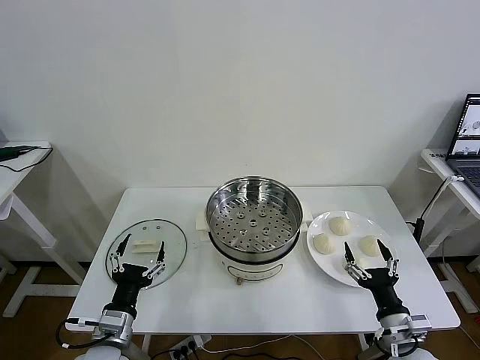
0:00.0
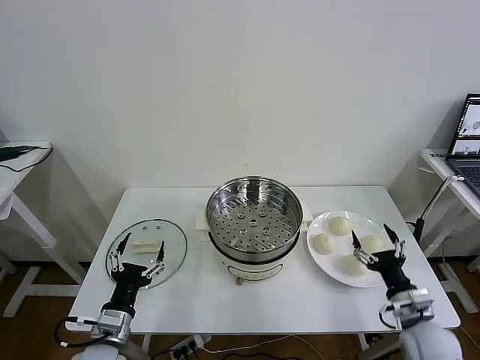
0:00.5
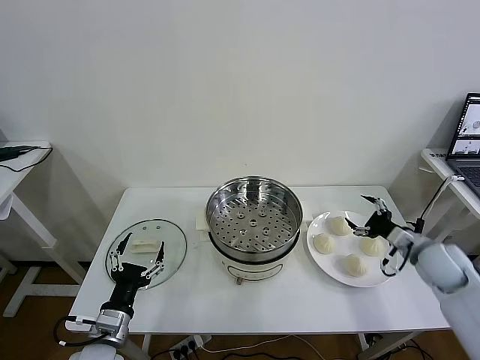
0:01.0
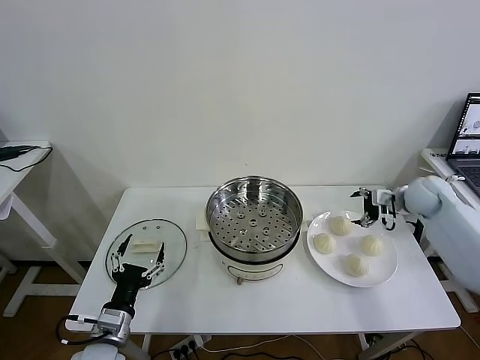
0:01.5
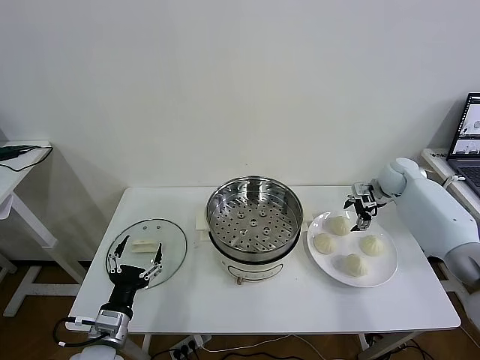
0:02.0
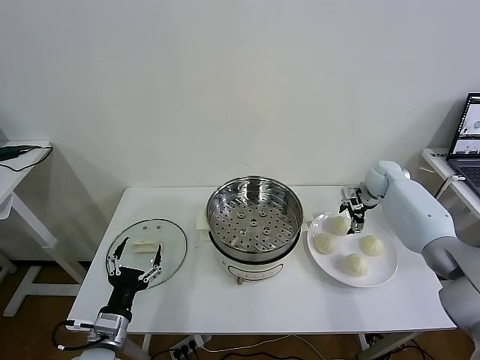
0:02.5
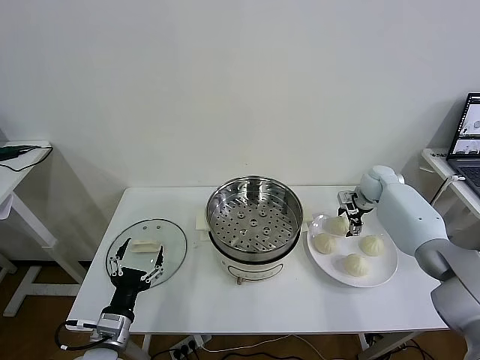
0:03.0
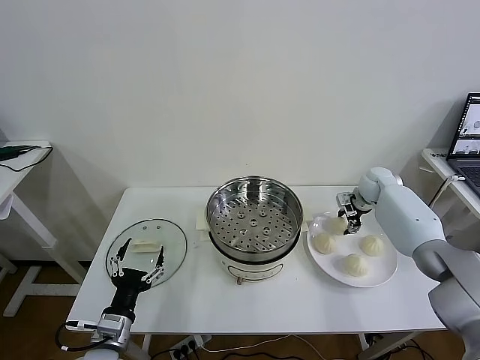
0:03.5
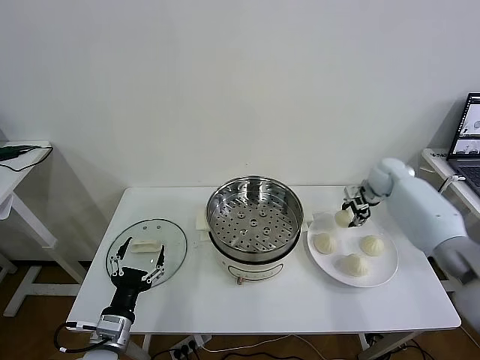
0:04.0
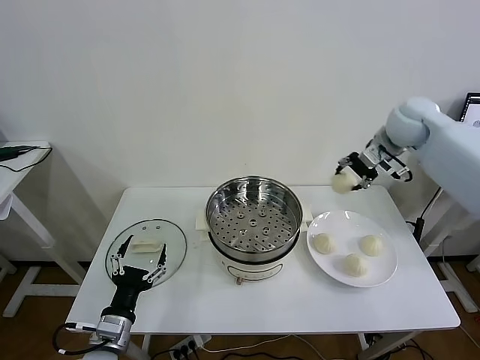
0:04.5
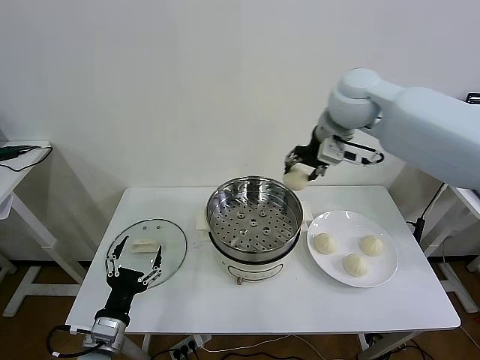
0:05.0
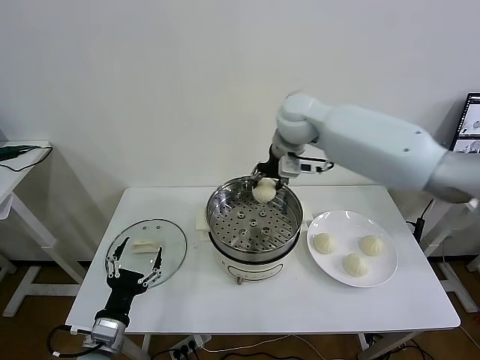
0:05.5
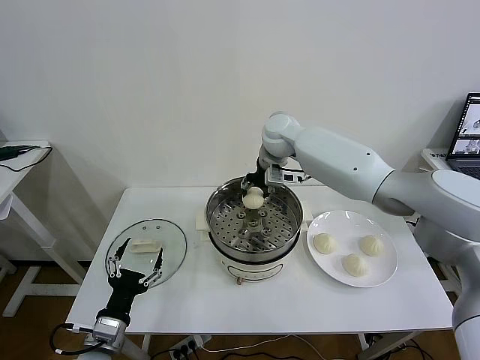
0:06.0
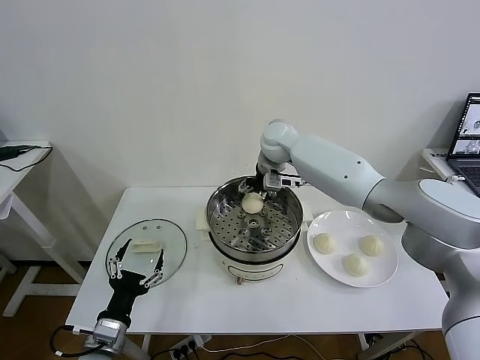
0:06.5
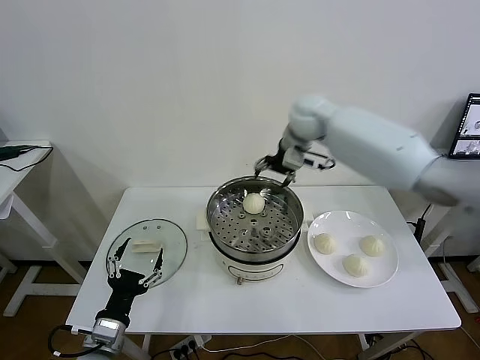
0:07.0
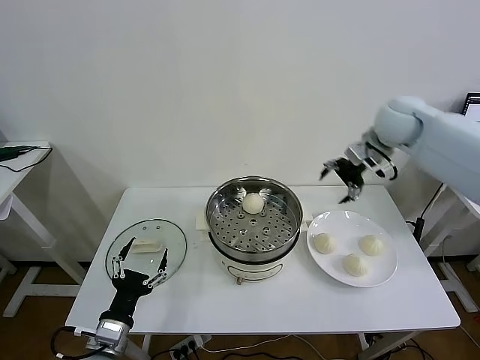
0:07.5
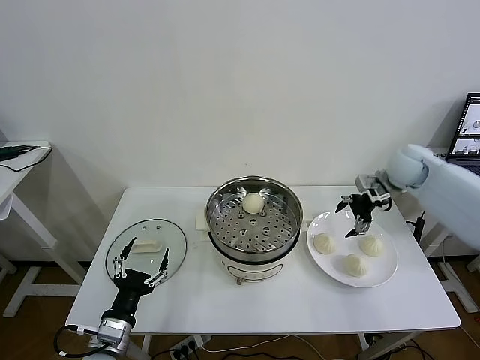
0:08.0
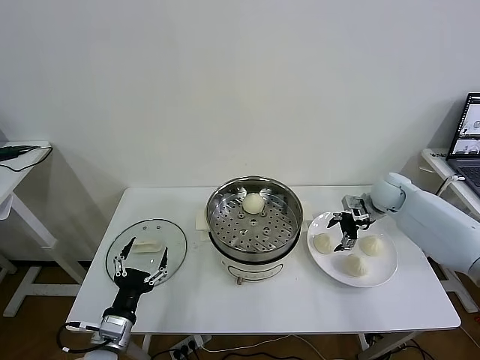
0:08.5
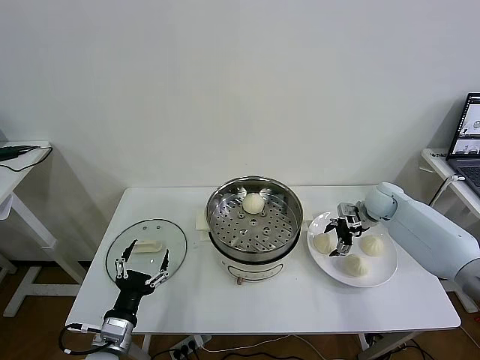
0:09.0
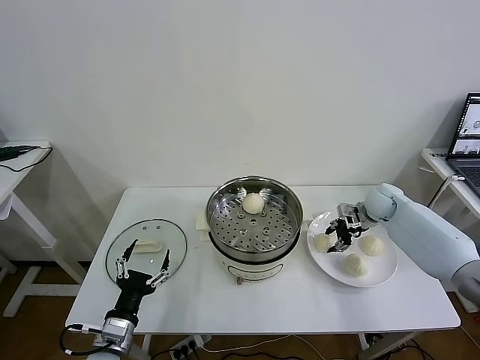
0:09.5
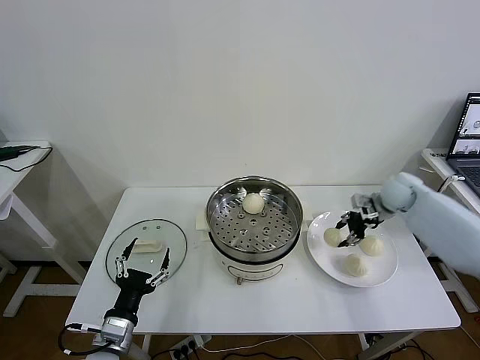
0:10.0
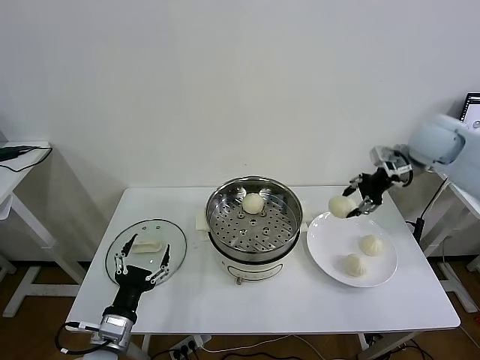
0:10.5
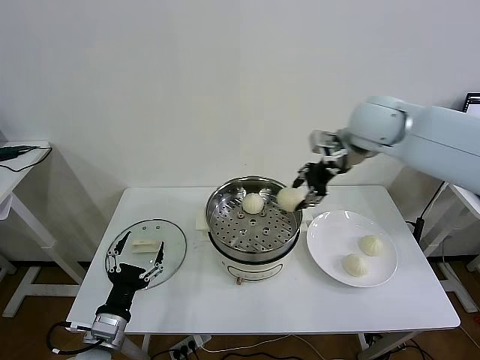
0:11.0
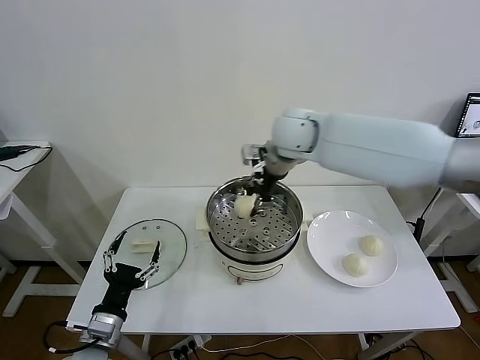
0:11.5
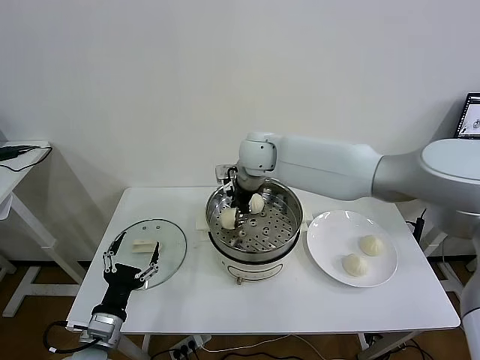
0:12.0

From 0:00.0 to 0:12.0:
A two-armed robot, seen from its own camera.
Task of the whole recording: take steamed baozi put them in steamer then cover it.
Step, from 0:00.0 to 0:03.5: Grasp the baozi in the plate with right gripper.
Step, from 0:04.0 to 0:06.5: Place the baozi on the steamer with right gripper.
Step, from 0:07.0 to 0:09.5: Grasp the baozi in the plate with right gripper.
From 0:02.0 to 0:04.0: The right gripper closes its fingers.
From 0:04.0 to 0:06.0: The right gripper travels to the left and upward by some 35 cm.
From 0:06.0 to 0:08.0: The right gripper shifts approximately 30 cm to the right, and opens.
From 0:08.0 to 0:10.0: The right gripper heads downward, covering approximately 10 cm, and closes up.
From 0:10.0 to 0:12.0: The right gripper shifts roughly 35 cm to the left.

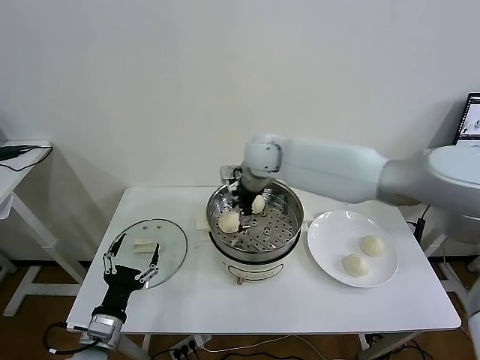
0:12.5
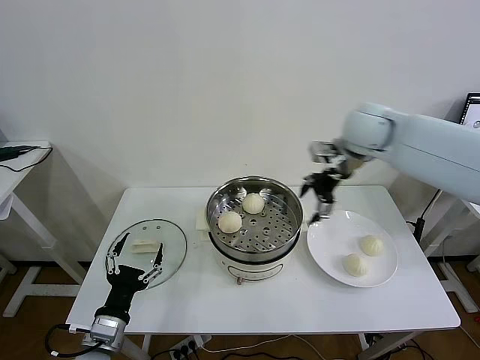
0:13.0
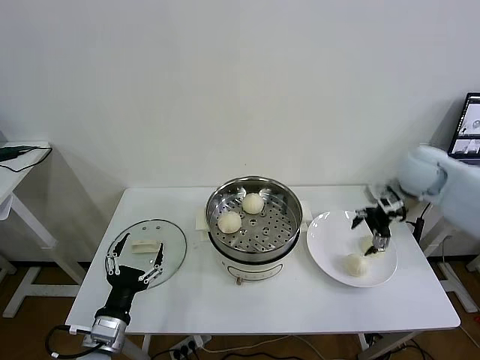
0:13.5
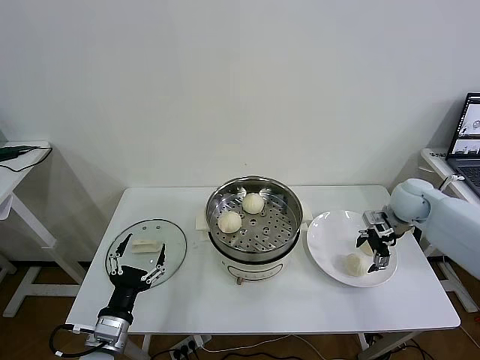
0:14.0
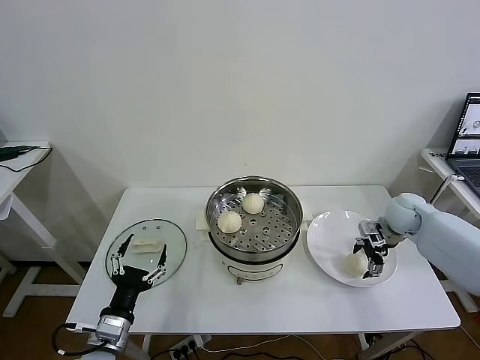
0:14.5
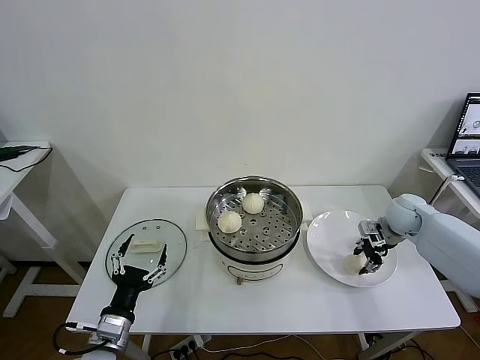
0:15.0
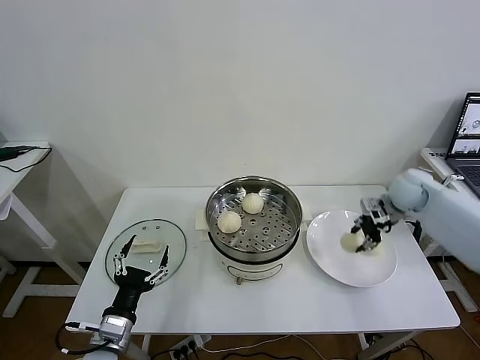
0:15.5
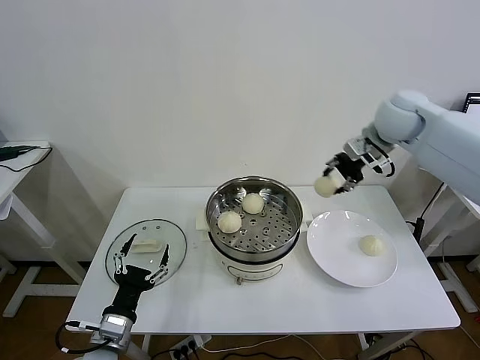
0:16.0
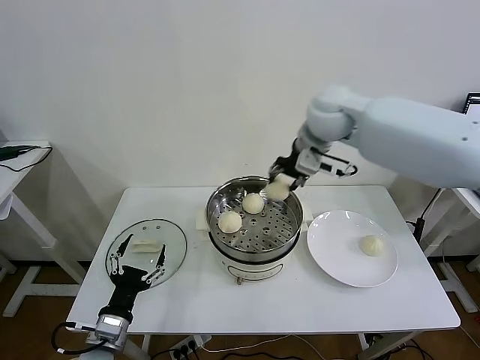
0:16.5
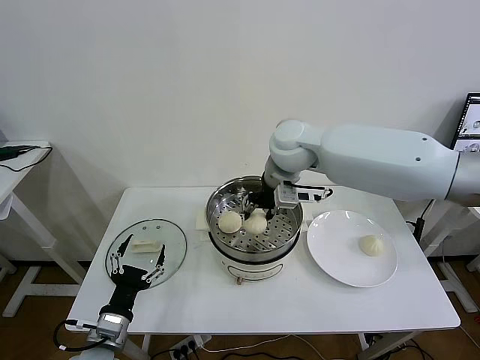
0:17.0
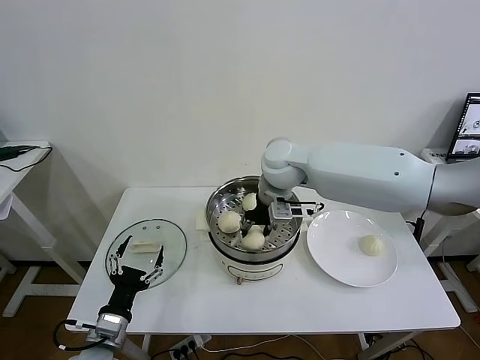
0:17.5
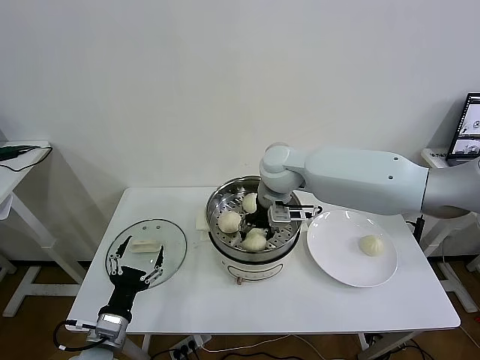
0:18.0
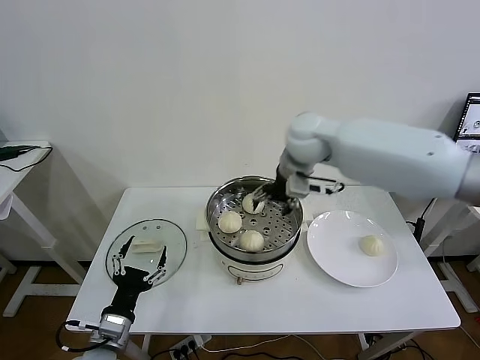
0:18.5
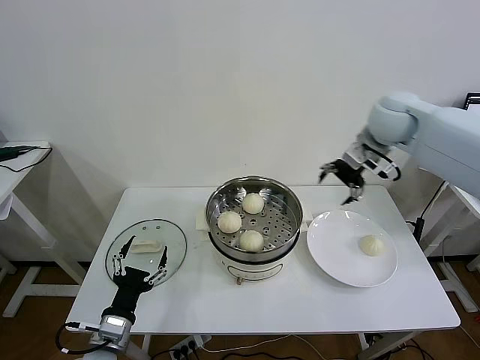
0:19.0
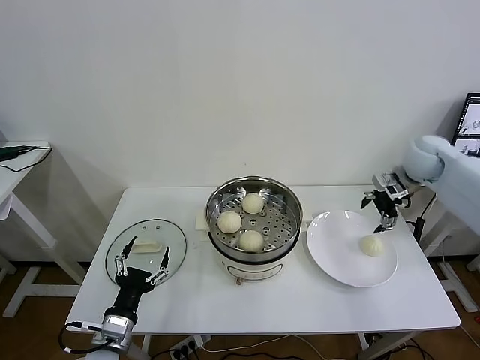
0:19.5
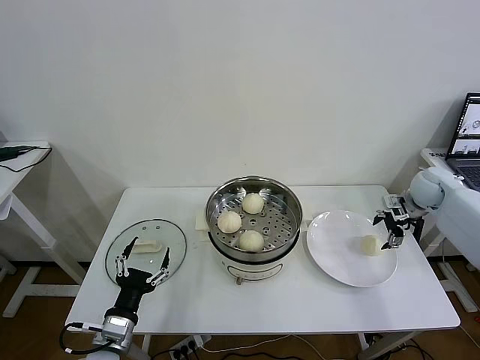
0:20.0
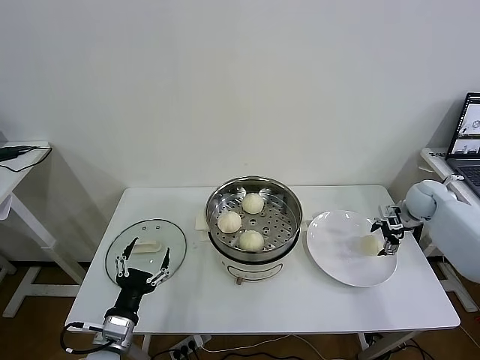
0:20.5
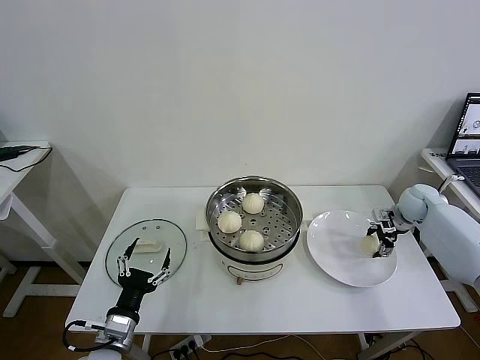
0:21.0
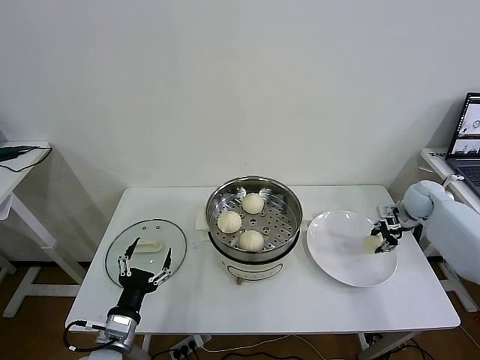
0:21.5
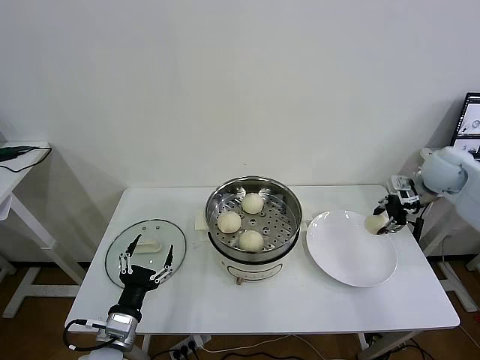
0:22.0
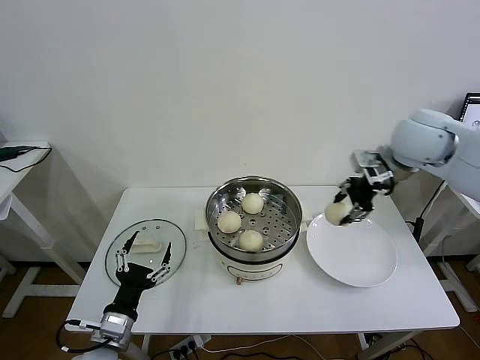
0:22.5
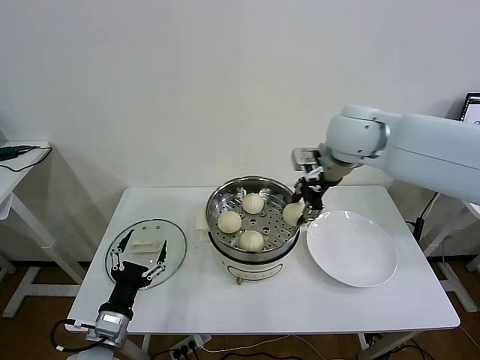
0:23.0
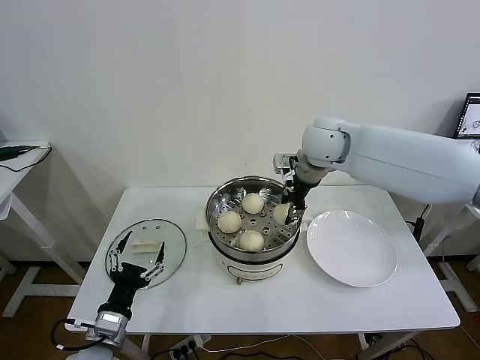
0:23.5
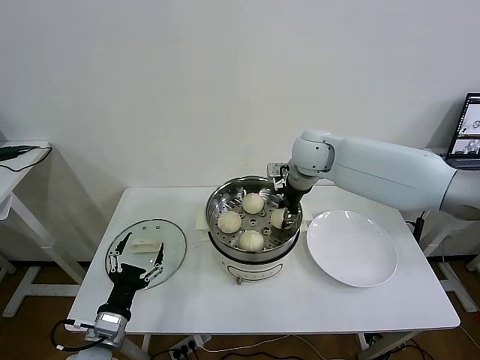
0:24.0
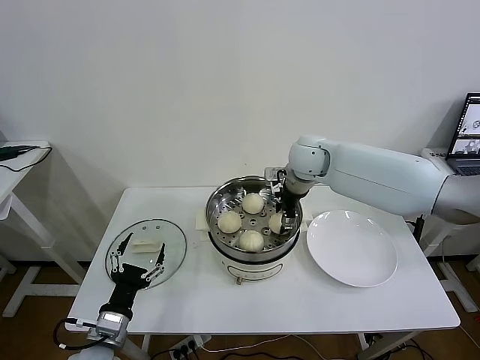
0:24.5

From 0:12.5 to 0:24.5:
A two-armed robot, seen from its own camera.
Task of the whole recording: take steamed baozi put them in steamer then cover it.
Step, from 0:12.5 to 0:15.0: Grasp the baozi in the plate with right gripper.
Step, from 0:15.5 to 0:18.0: Place the baozi on the steamer with right gripper.
Step, from 0:18.5 to 0:21.0: Grasp the baozi in the plate with right gripper.
From 0:12.5 to 0:14.5: The right gripper travels to the right by approximately 35 cm.
From 0:14.5 to 0:16.5: The right gripper travels upward and to the left by about 35 cm, and closes.
From 0:16.5 to 0:18.5: The right gripper is displaced downward by some 5 cm, and opens.
From 0:18.5 to 0:20.5: The right gripper travels to the right and downward by some 40 cm.
From 0:20.5 to 0:22.5: The right gripper travels upward and to the left by about 30 cm, and closes its fingers.
From 0:22.5 to 0:24.5: The right gripper goes about 20 cm to the left, downward and forward, and opens.

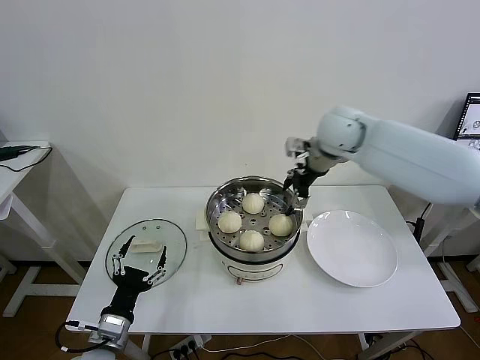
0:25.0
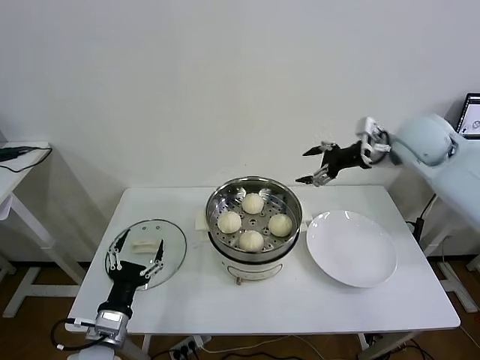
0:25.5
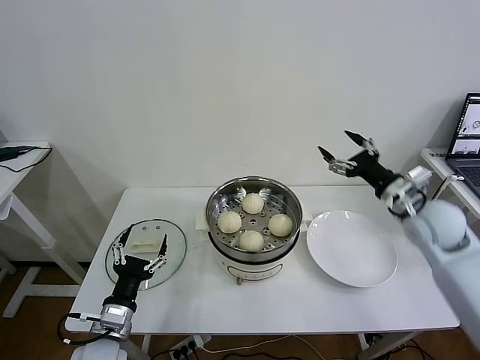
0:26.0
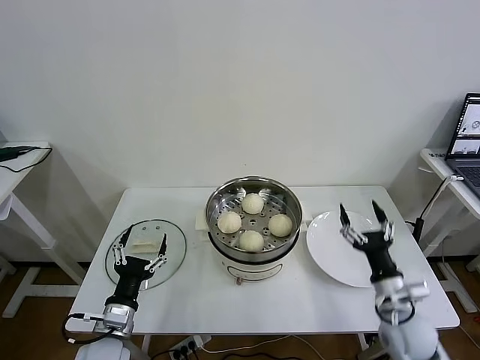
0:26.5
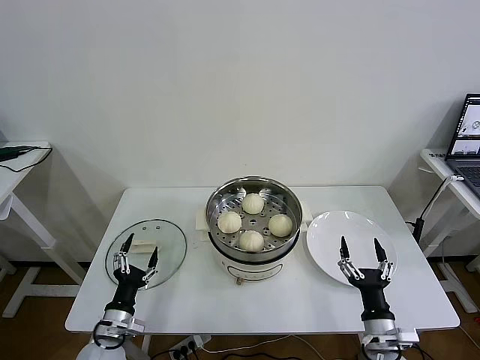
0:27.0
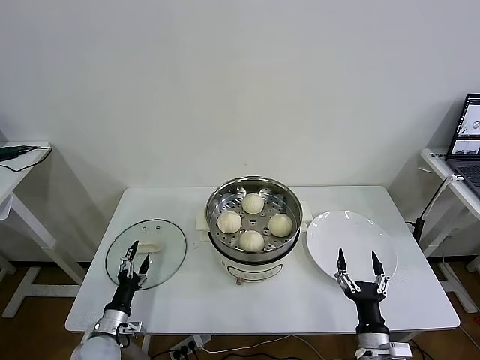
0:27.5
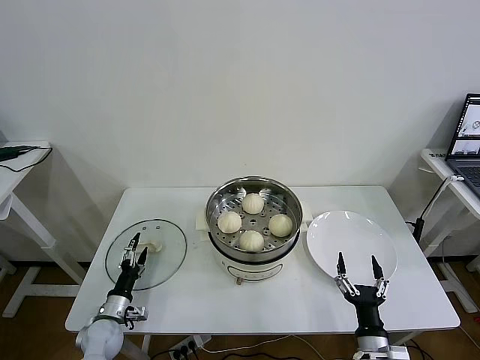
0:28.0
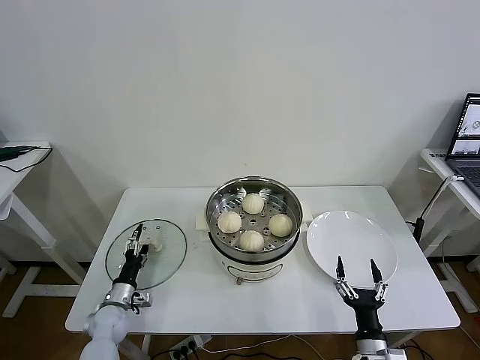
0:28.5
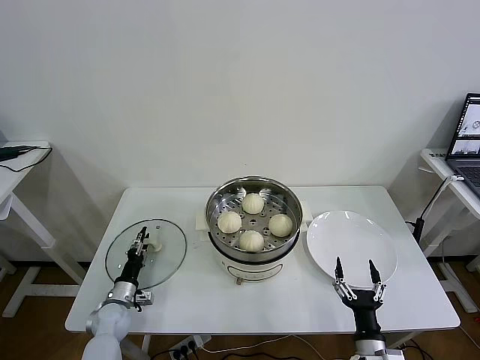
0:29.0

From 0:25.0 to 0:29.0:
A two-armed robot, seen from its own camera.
Task of the whole recording: take steamed baozi put them in steamer then cover it.
From 0:25.0 to 0:27.0: The right gripper heads backward and downward, covering some 50 cm, while the left gripper moves downward, some 5 cm.
From 0:27.0 to 0:29.0: The right gripper changes place by some 5 cm. The left gripper is displaced forward, downward and to the left by about 15 cm, and closes.
